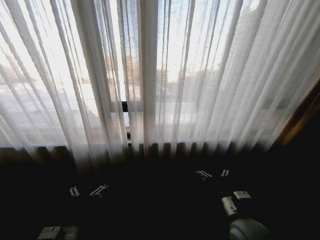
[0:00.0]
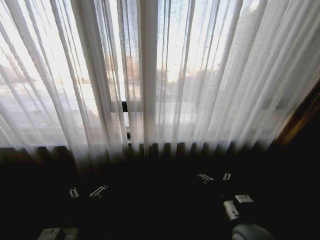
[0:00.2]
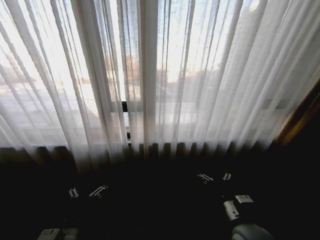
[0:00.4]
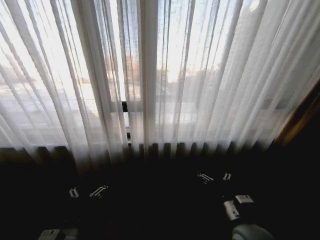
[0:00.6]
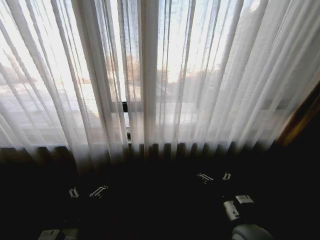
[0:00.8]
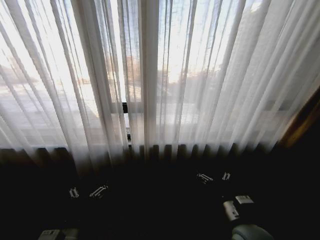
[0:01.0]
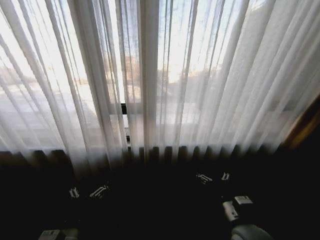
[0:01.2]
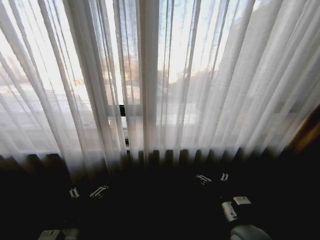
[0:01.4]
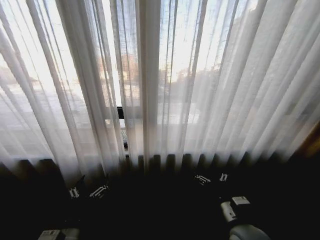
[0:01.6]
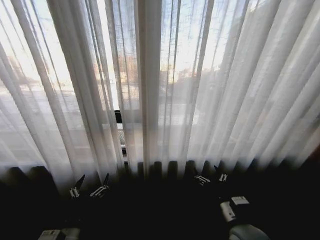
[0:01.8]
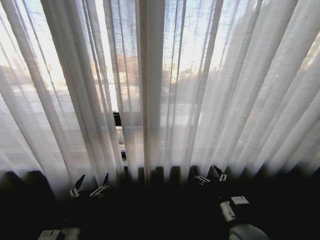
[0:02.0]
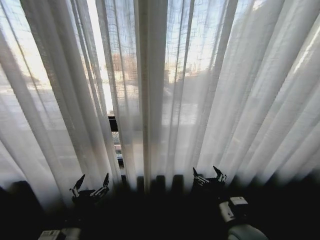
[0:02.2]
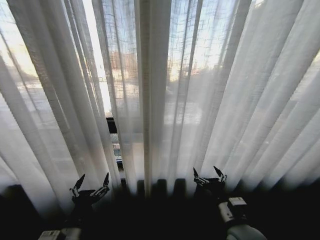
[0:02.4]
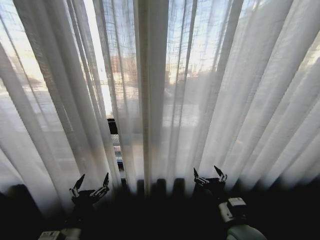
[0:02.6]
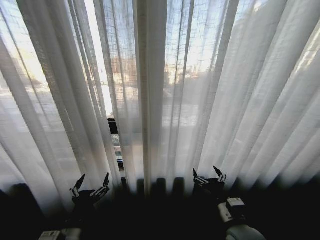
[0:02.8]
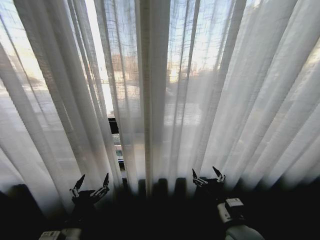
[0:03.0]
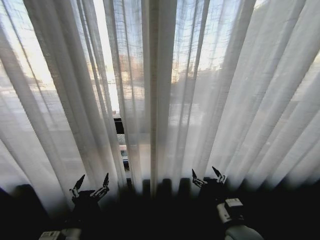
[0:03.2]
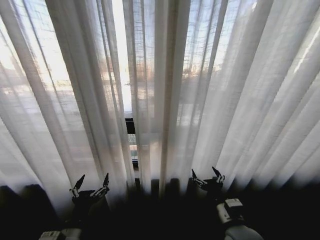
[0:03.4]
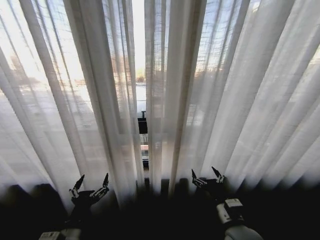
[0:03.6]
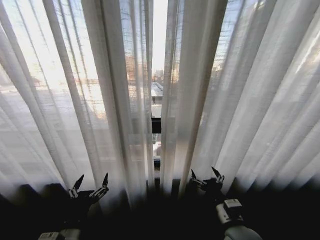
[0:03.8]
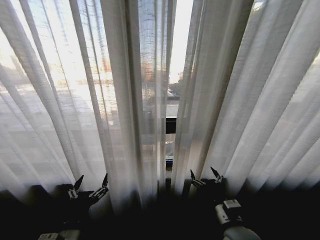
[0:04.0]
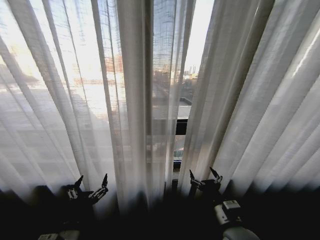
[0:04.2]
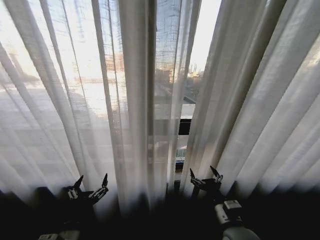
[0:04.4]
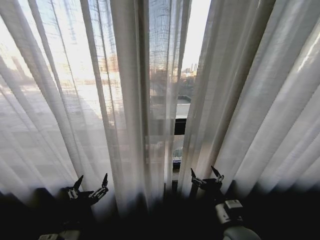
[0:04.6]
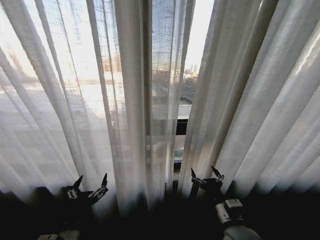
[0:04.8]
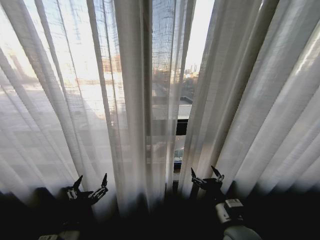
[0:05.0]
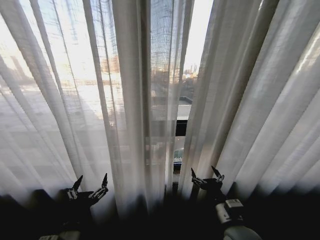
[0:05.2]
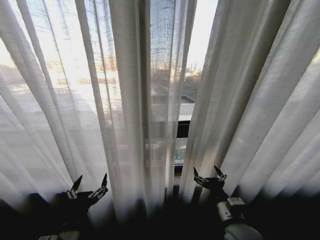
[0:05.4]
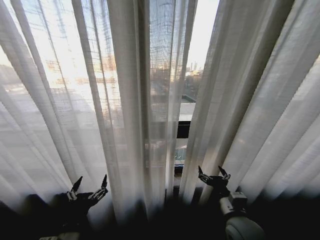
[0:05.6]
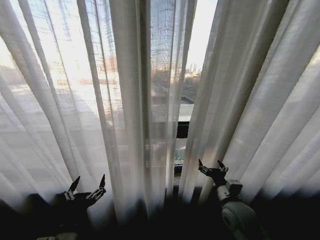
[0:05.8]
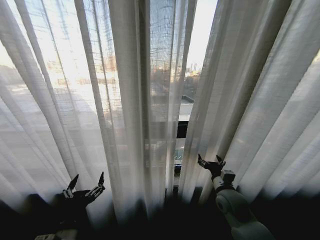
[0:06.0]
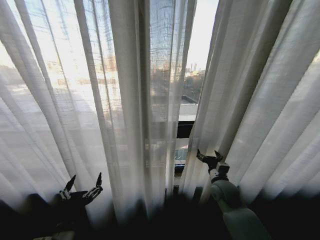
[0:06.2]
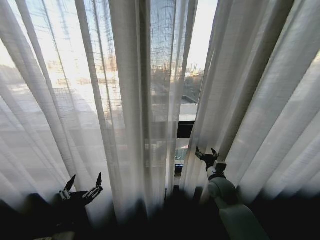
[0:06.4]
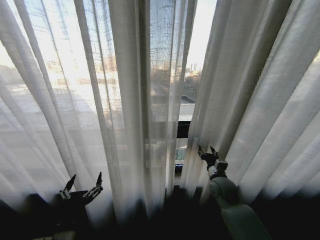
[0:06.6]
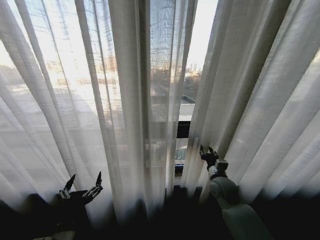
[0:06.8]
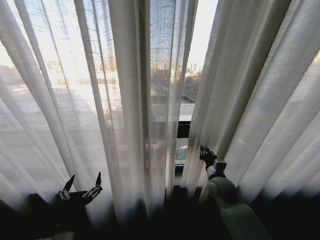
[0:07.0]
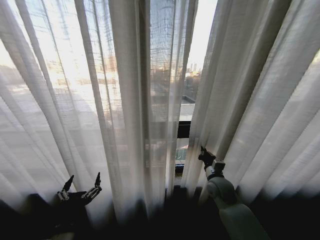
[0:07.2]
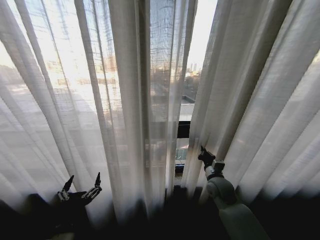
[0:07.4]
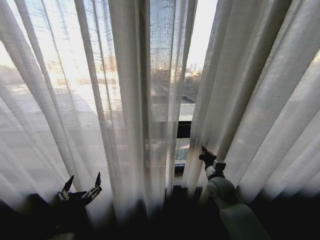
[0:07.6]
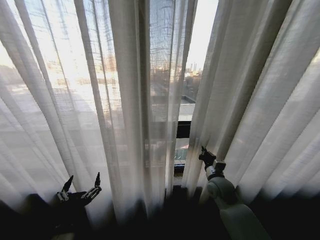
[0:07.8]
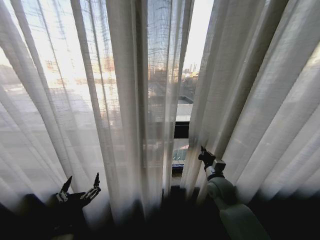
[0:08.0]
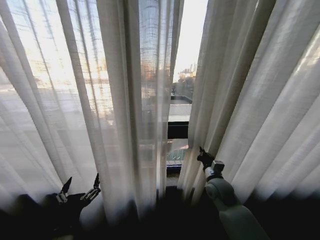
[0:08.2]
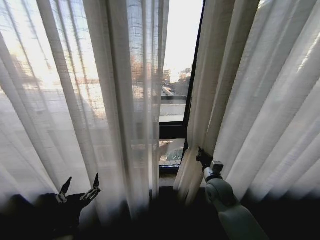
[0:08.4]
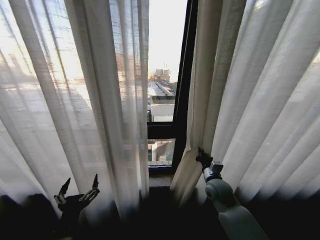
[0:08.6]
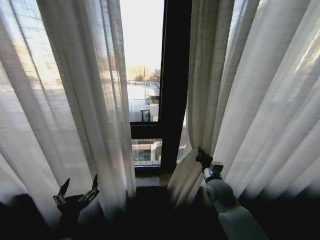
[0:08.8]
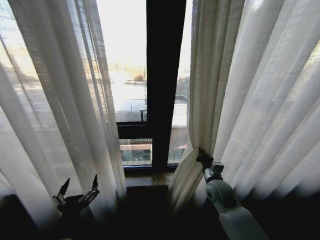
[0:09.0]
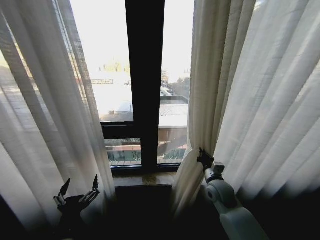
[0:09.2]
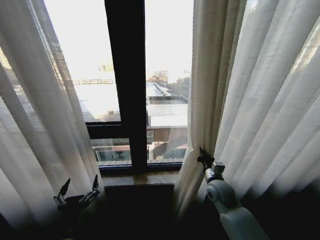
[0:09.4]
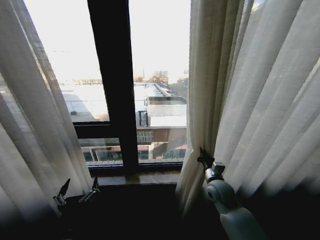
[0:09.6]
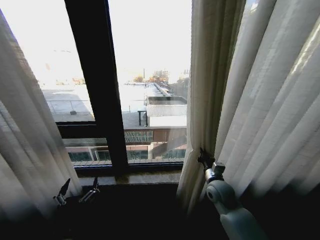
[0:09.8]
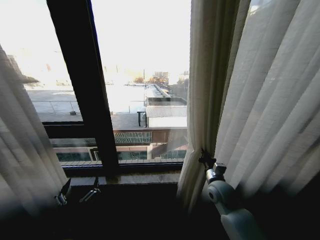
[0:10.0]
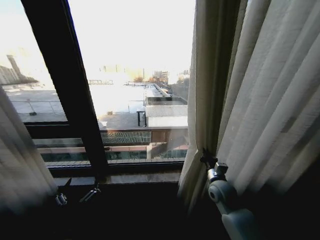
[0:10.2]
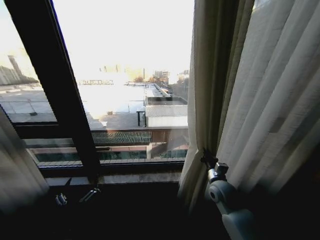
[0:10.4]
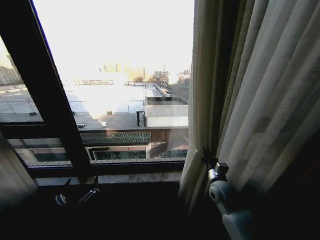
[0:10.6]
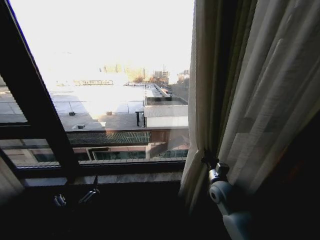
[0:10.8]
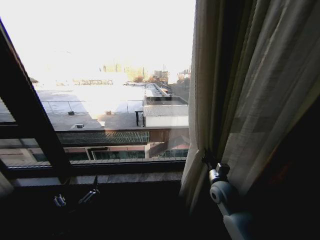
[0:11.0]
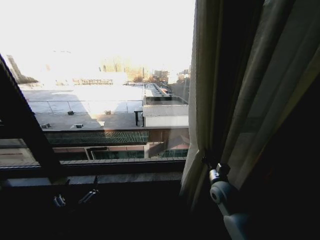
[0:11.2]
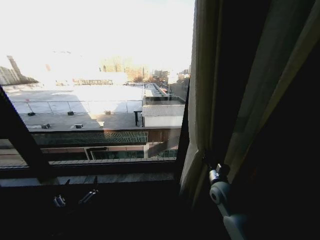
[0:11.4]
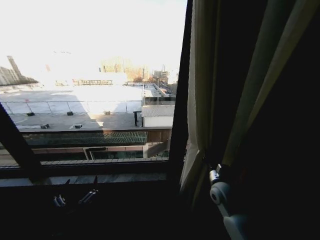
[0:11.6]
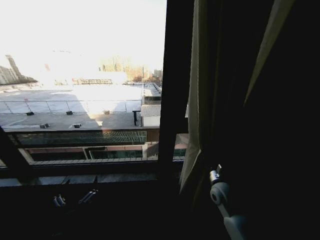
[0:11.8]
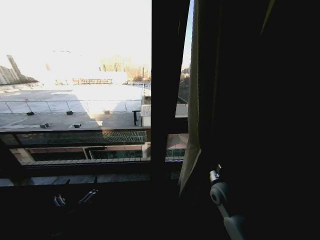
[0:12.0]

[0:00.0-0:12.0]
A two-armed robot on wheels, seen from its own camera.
Task of the whole recording: Open the curtains by pulling them apart, changing their state from closed to fully open.
0:04.4 to 0:06.0: The right gripper shifts roughly 10 cm forward.
0:06.0 to 0:07.6: The right gripper ends up about 5 cm from where it was, and closes its fingers.

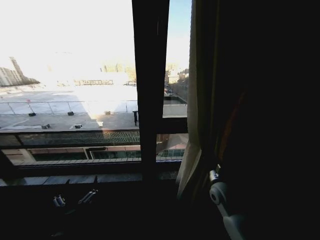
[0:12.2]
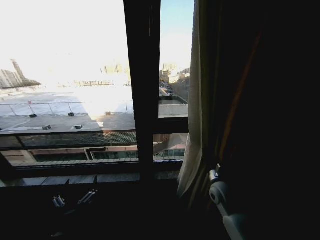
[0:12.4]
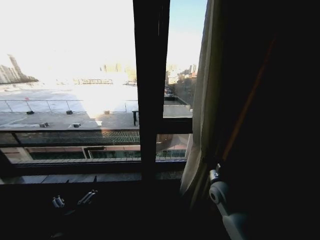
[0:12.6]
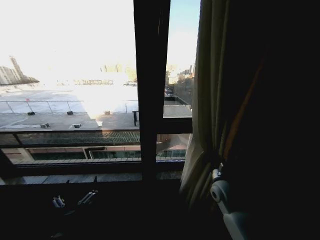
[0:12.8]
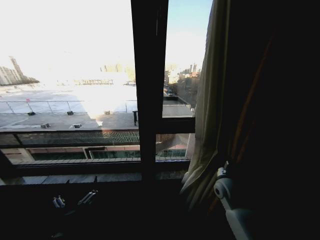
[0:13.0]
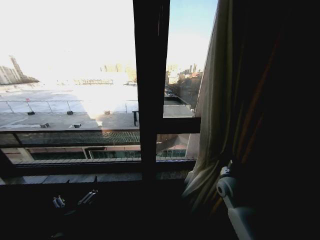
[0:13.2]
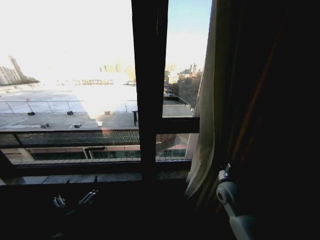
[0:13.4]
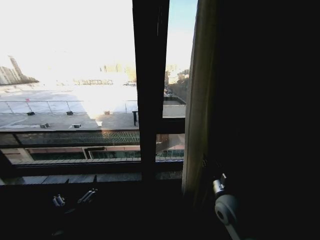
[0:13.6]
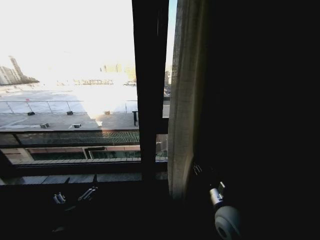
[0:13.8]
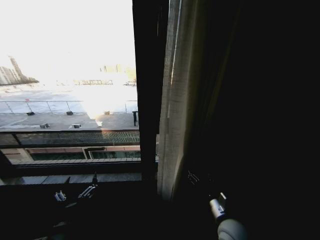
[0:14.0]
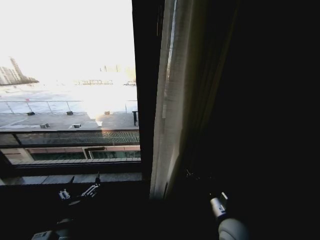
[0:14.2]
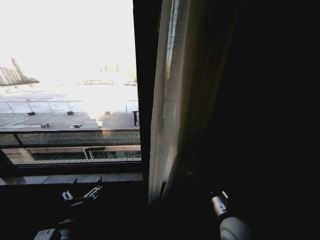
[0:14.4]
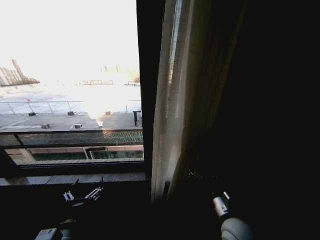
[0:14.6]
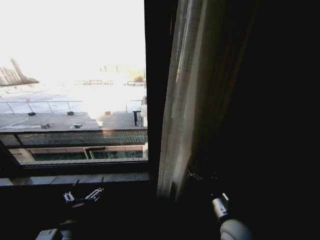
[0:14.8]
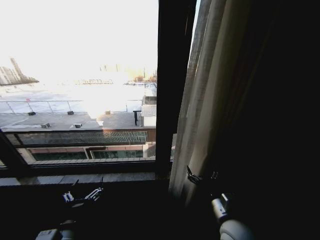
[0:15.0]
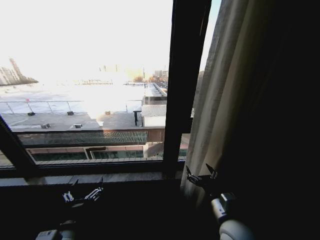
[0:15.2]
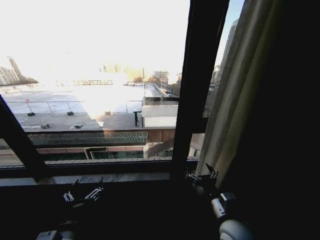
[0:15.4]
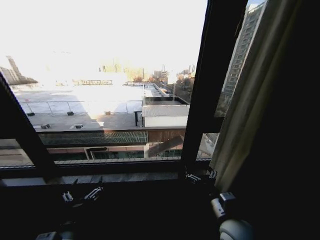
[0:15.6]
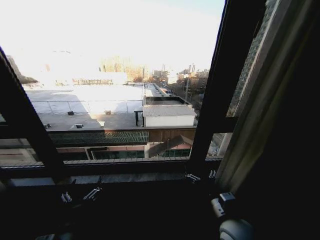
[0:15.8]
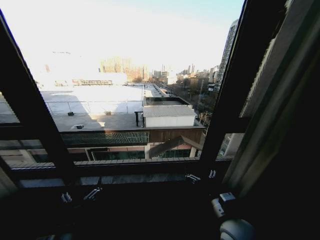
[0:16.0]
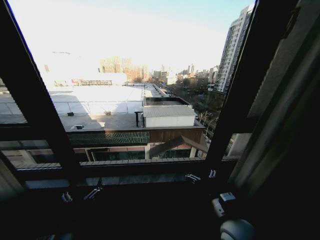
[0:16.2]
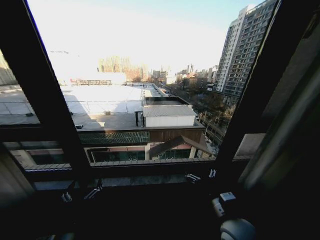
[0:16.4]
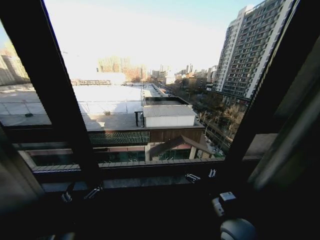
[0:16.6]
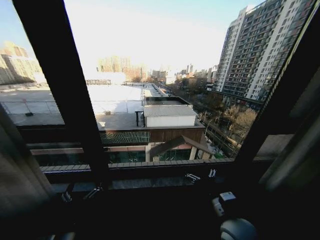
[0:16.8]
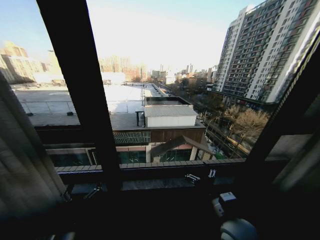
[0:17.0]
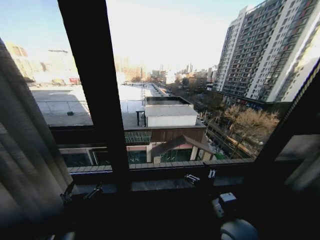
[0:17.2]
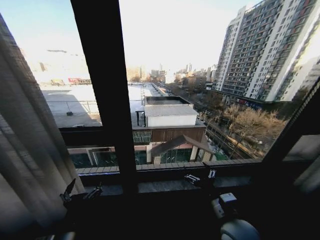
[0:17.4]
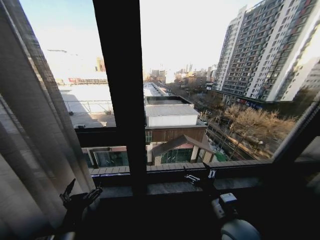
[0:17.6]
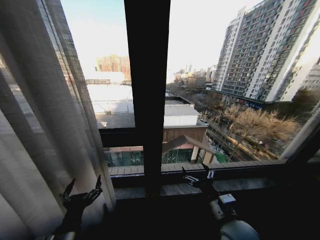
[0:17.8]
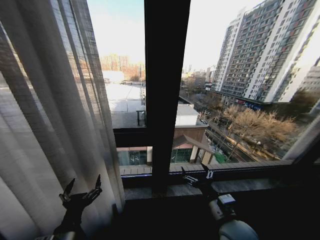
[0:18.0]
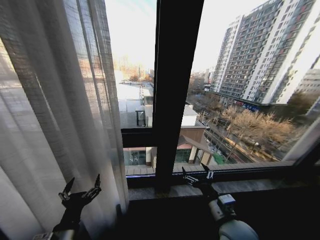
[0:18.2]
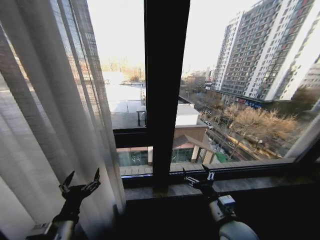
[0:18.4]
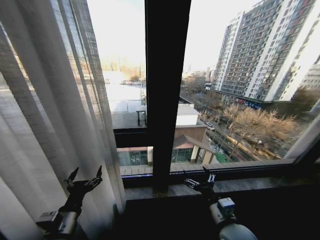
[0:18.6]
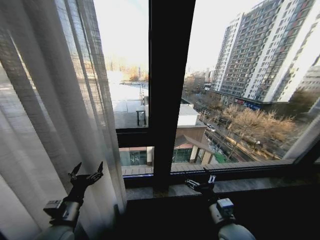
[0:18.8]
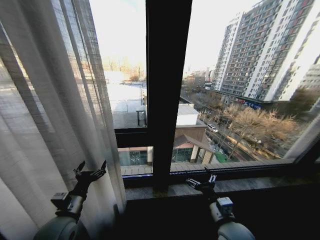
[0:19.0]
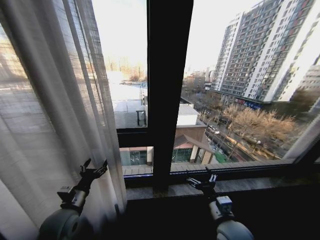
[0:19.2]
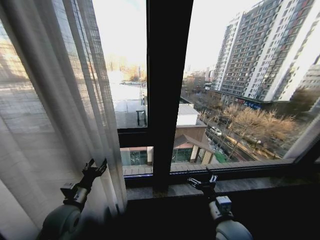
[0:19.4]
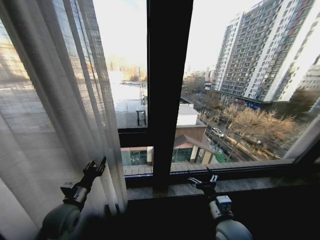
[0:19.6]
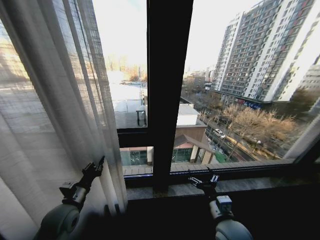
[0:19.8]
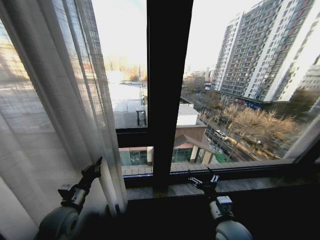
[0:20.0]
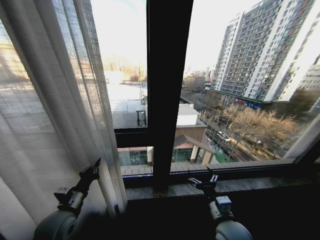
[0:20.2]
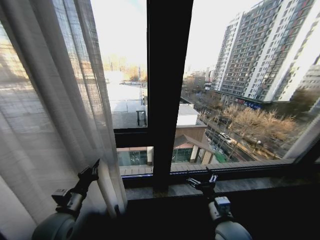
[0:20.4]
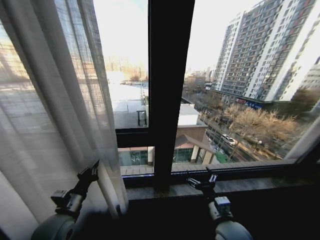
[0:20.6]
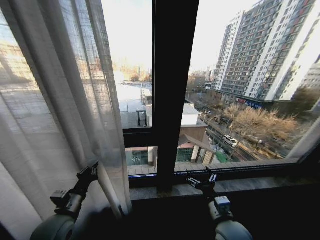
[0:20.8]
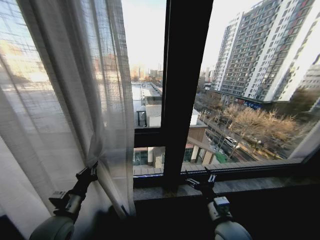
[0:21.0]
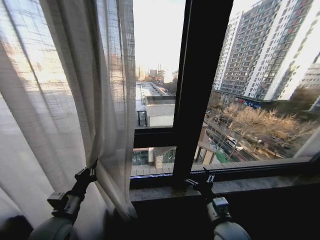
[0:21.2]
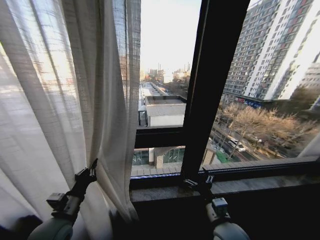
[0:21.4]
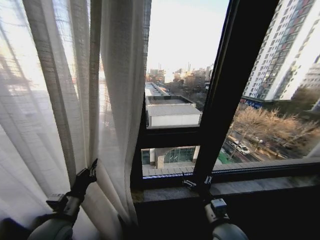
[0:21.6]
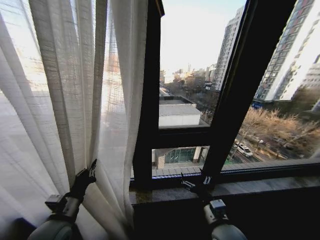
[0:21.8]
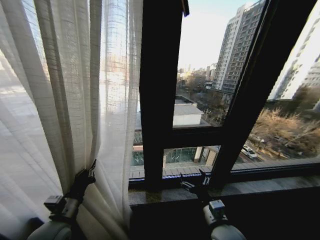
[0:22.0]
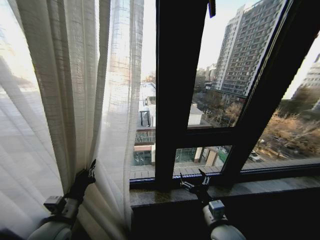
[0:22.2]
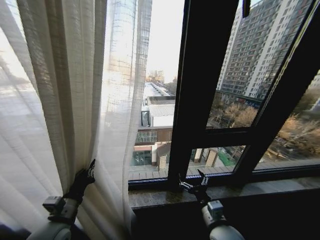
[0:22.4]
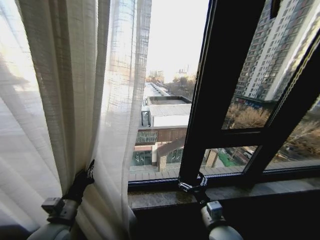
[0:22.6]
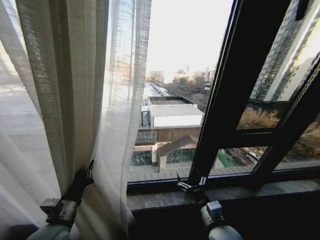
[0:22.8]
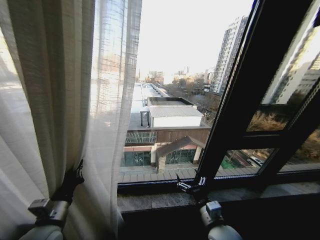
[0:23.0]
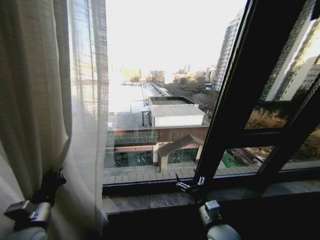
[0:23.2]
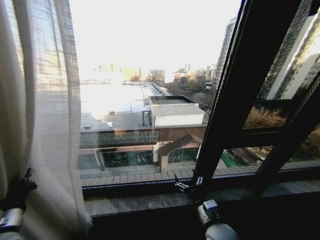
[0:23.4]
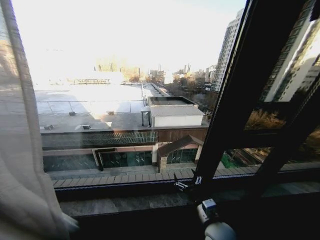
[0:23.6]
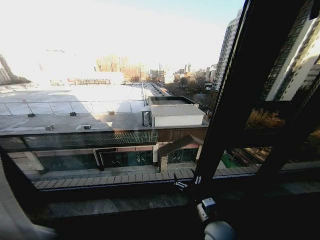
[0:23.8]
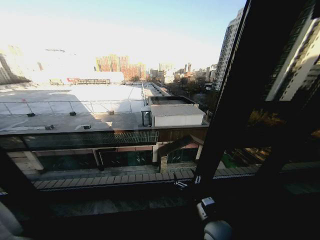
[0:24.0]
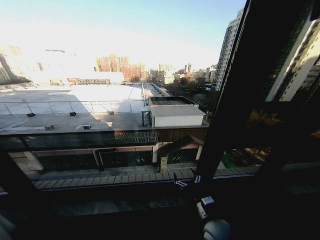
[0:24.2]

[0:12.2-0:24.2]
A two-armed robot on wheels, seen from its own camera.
Task of the whole recording: Open the curtains by pulling them apart, changing their state from closed to fully open.
0:12.2 to 0:13.8: The right gripper heads backward, covering some 10 cm, and opens up.
0:13.8 to 0:15.2: The right gripper opens its fingers.
0:18.2 to 0:19.8: The left gripper heads forward and to the left, covering some 15 cm, and closes up.
0:19.8 to 0:21.2: The left gripper ends up roughly 5 cm from where it was.
0:22.6 to 0:24.2: The left gripper heads to the left, covering some 25 cm.
